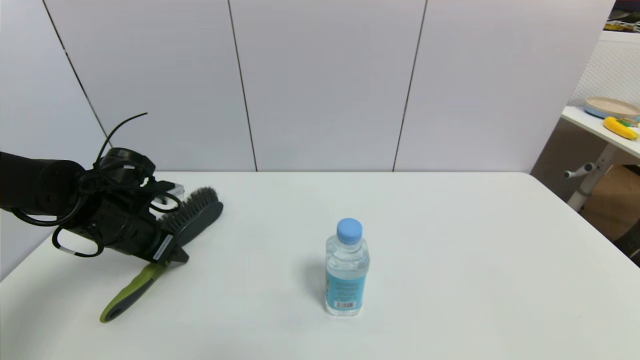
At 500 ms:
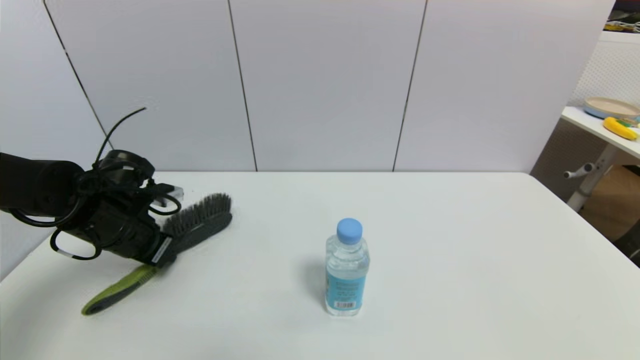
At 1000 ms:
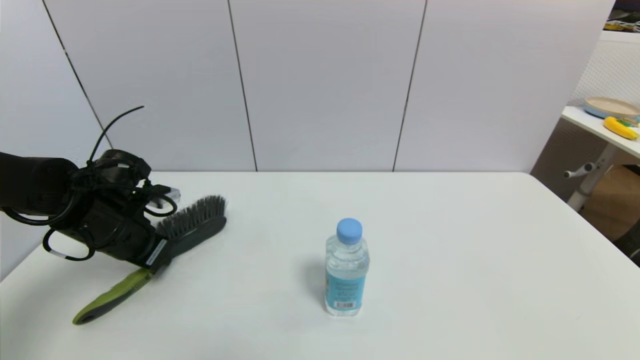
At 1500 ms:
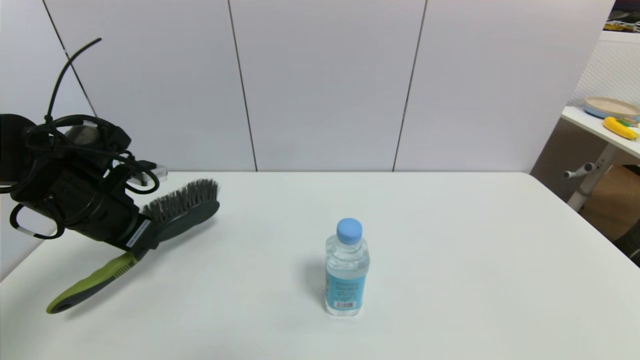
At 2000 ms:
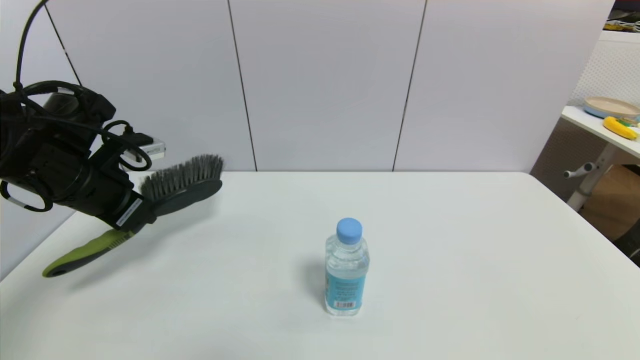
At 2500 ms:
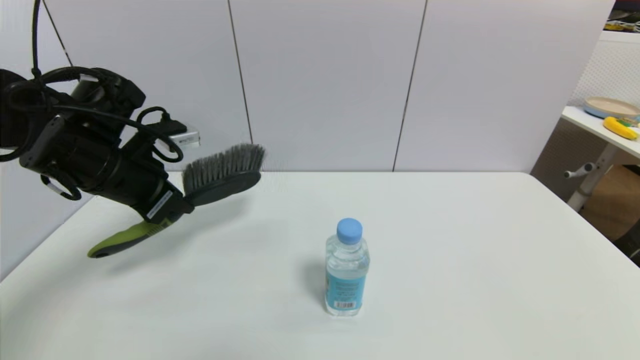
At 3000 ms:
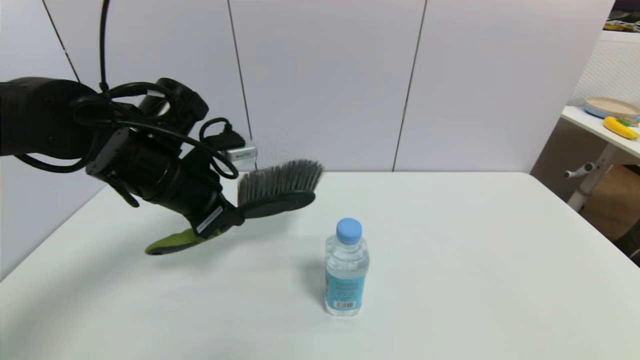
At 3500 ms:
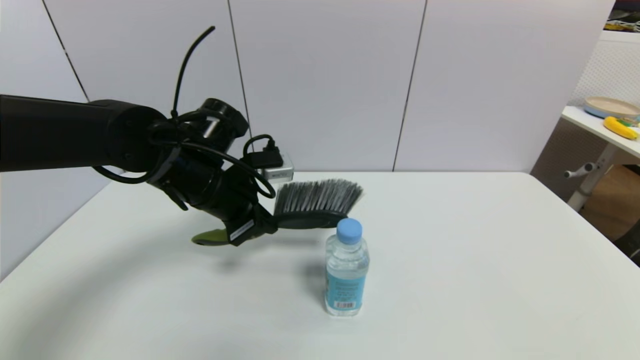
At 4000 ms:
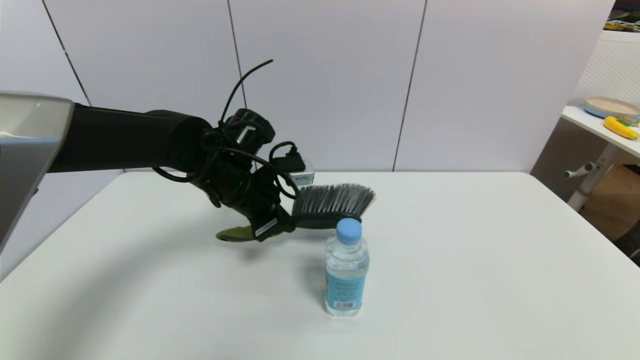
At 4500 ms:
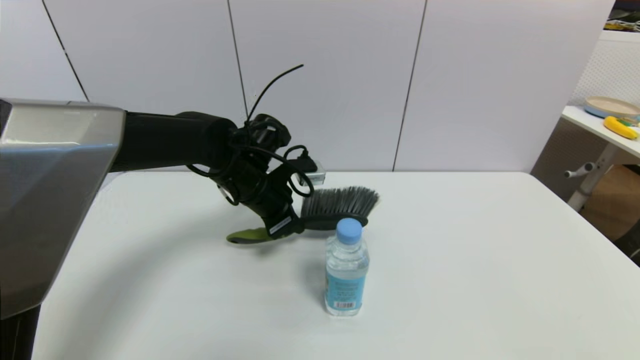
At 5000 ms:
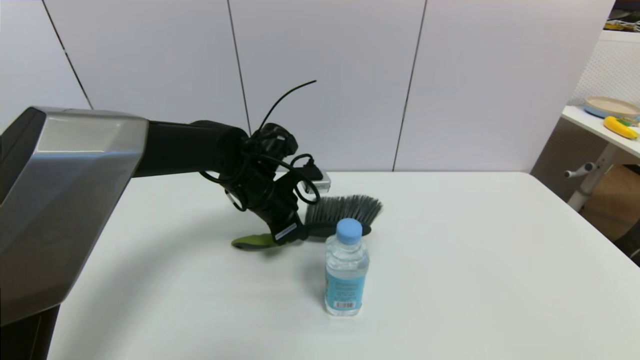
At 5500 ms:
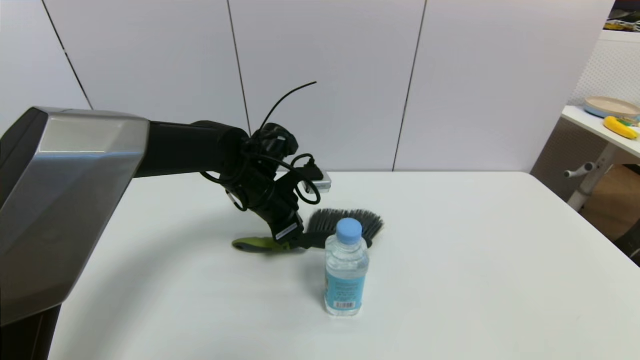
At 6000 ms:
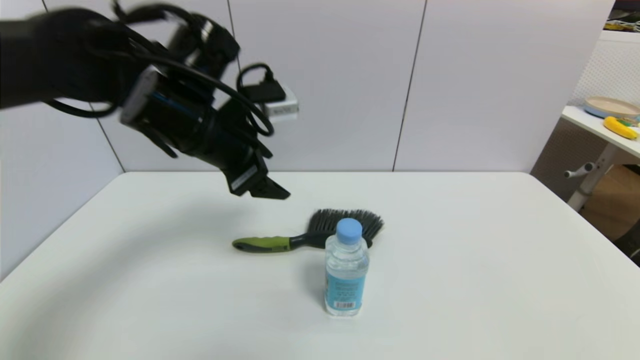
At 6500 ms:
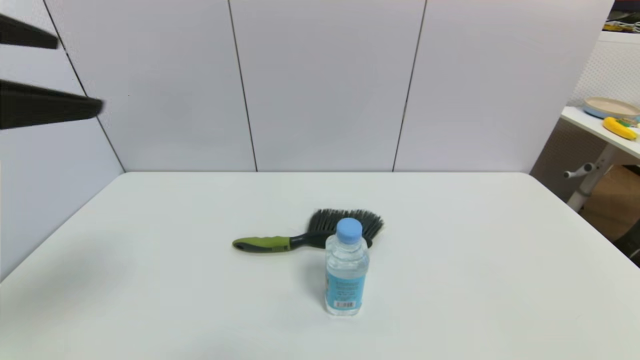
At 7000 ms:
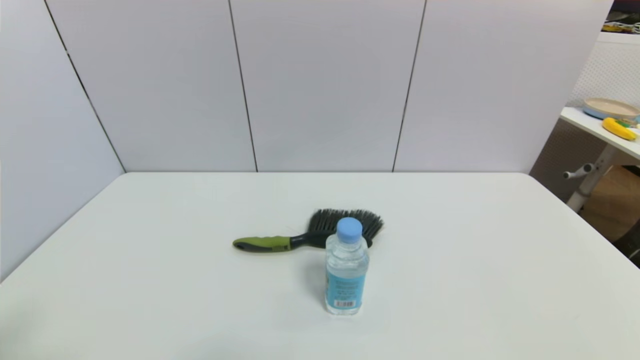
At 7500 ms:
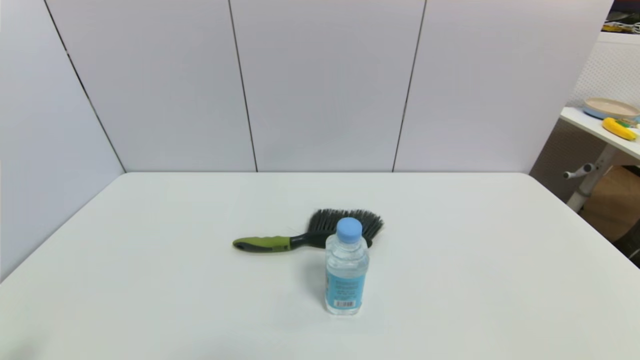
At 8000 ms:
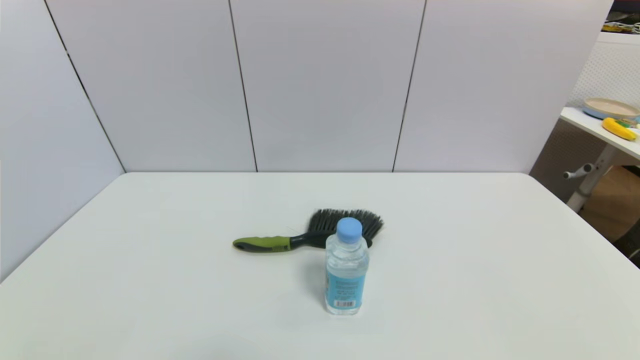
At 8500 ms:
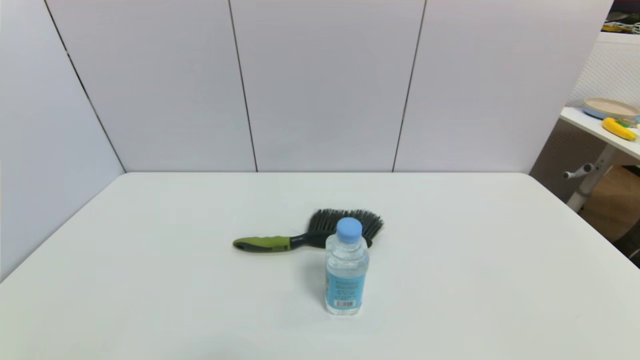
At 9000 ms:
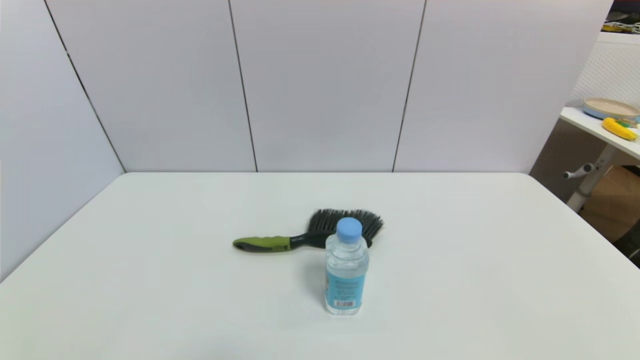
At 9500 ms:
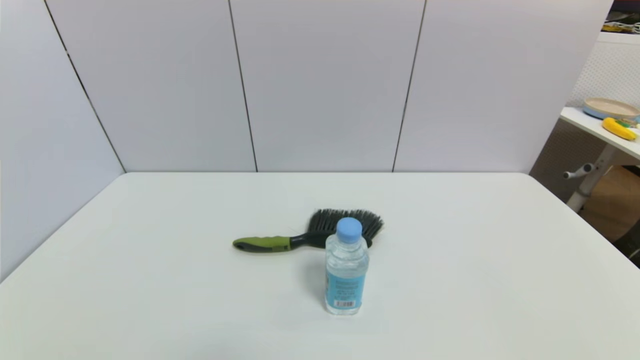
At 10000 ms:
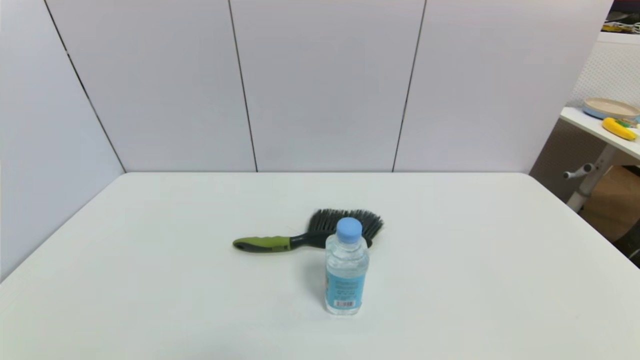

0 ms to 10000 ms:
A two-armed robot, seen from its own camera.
Task of the whole recording: put the brush in the designated position.
Step, 2000 ms to 5500 ms: Place the brush on the table with left gripper.
0 ms to 2000 ms: The left gripper moves upward, approximately 10 cm, and closes.
2000 ms to 4000 ms: The left gripper goes approximately 15 cm to the right.
4000 ms to 6000 ms: The left gripper shifts roughly 10 cm upward and backward, and opens up.
6000 ms to 8000 ms: The left gripper moves backward, downward and to the left, approximately 40 cm.
